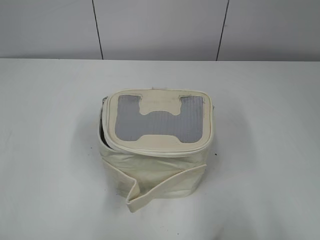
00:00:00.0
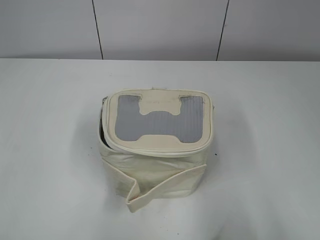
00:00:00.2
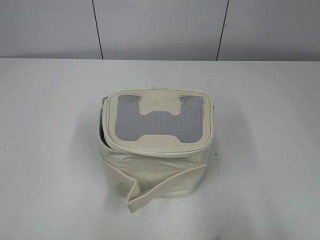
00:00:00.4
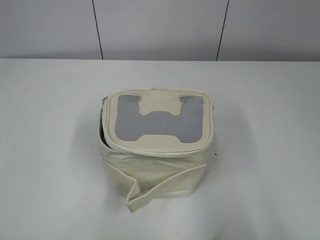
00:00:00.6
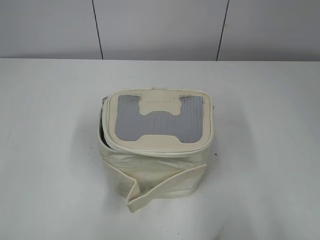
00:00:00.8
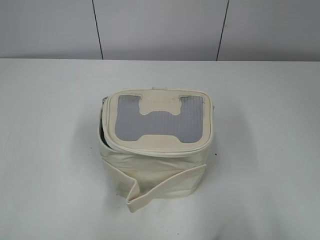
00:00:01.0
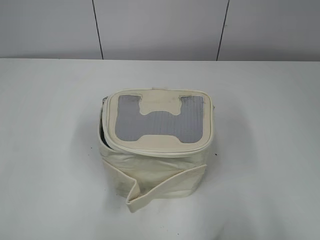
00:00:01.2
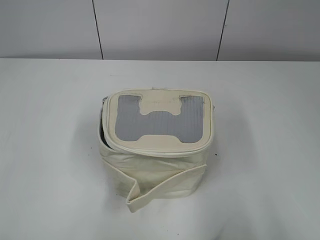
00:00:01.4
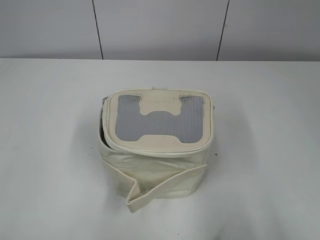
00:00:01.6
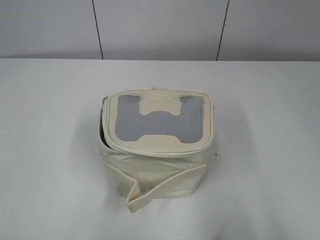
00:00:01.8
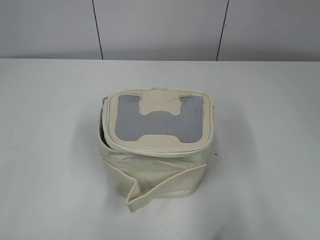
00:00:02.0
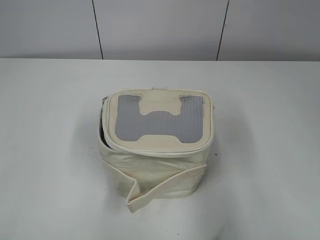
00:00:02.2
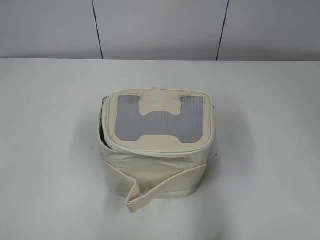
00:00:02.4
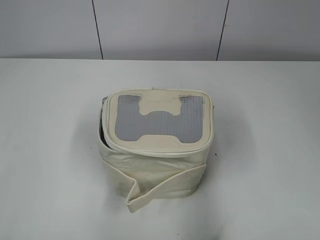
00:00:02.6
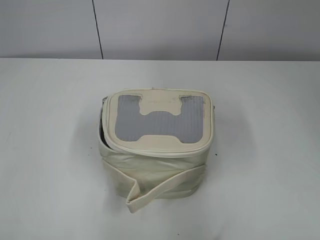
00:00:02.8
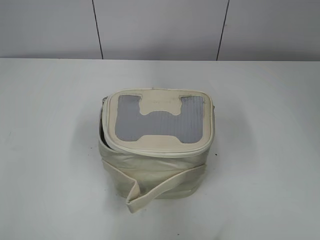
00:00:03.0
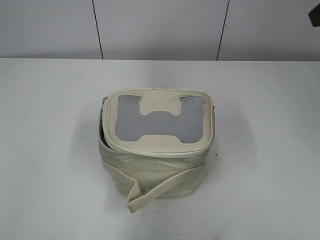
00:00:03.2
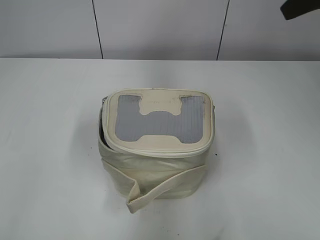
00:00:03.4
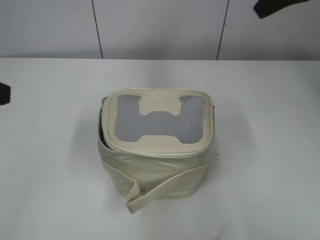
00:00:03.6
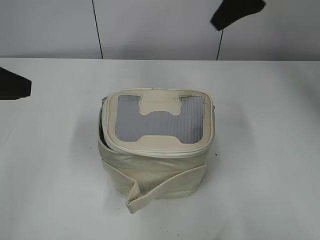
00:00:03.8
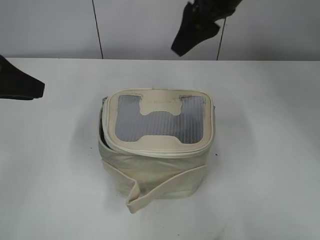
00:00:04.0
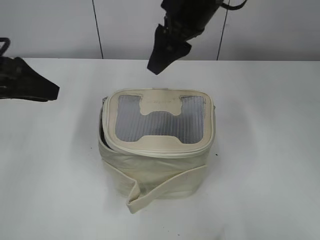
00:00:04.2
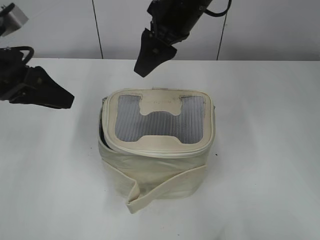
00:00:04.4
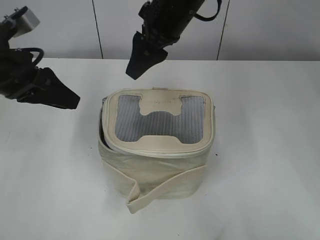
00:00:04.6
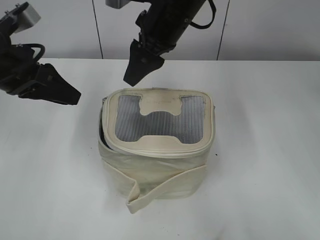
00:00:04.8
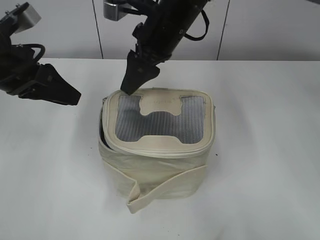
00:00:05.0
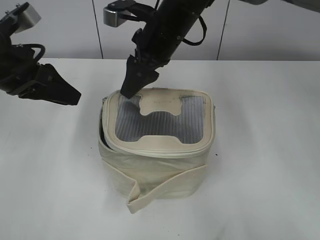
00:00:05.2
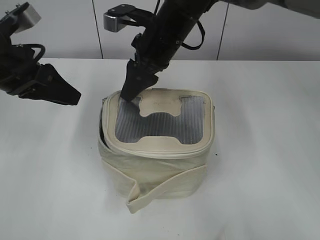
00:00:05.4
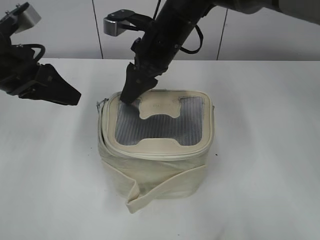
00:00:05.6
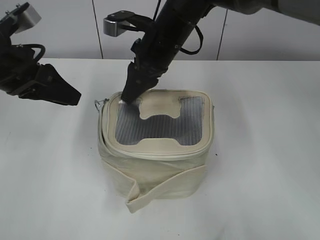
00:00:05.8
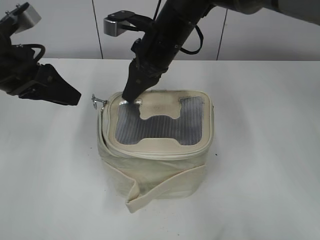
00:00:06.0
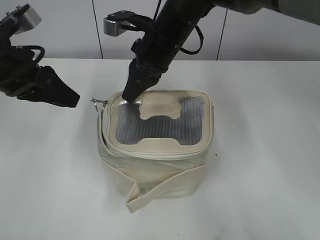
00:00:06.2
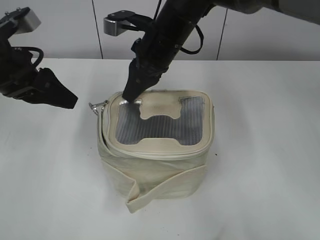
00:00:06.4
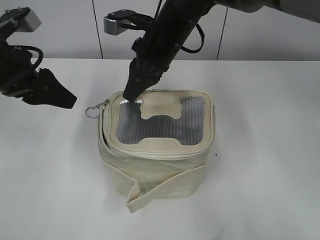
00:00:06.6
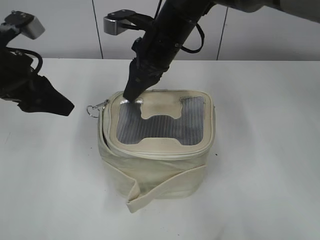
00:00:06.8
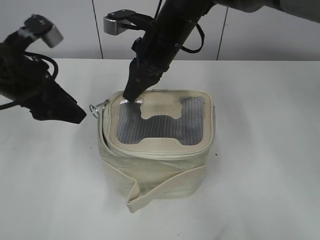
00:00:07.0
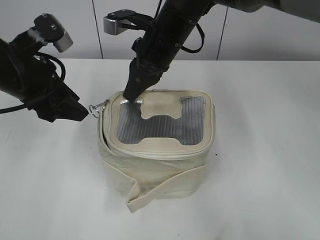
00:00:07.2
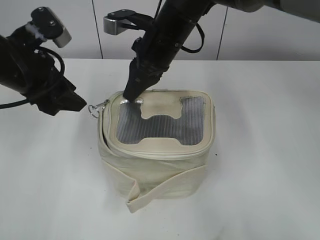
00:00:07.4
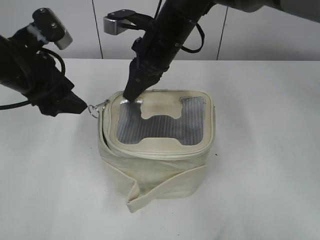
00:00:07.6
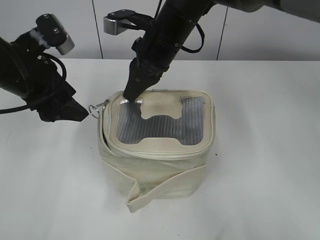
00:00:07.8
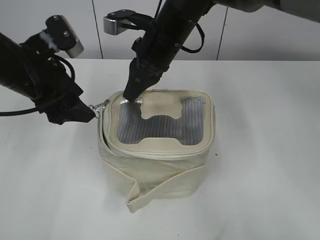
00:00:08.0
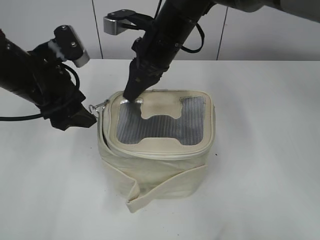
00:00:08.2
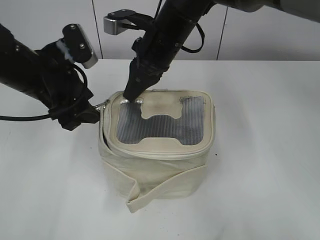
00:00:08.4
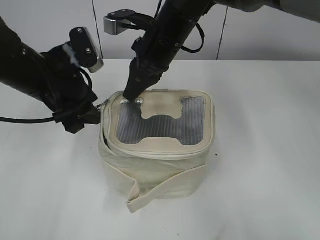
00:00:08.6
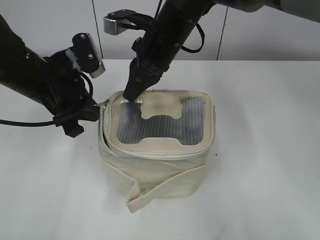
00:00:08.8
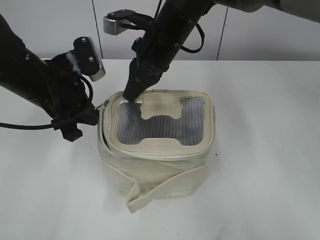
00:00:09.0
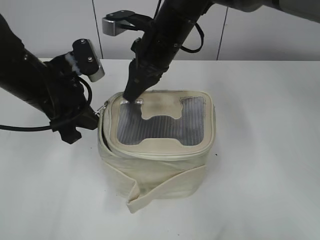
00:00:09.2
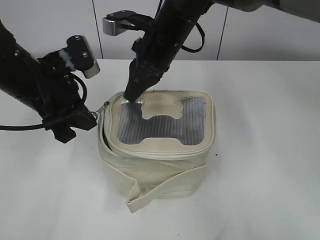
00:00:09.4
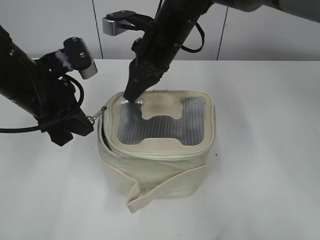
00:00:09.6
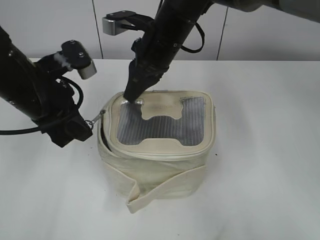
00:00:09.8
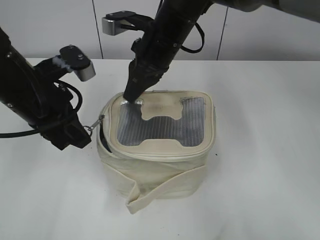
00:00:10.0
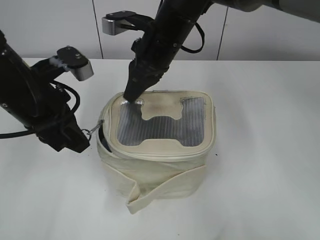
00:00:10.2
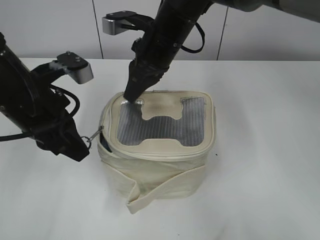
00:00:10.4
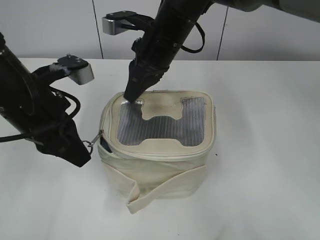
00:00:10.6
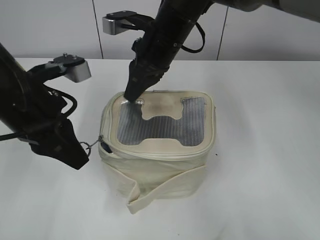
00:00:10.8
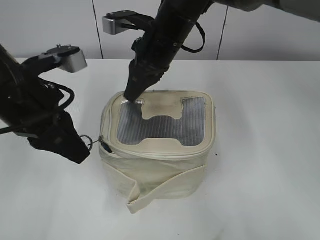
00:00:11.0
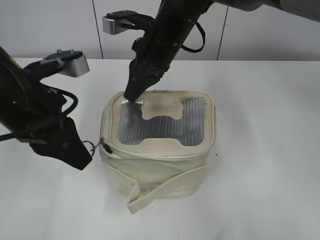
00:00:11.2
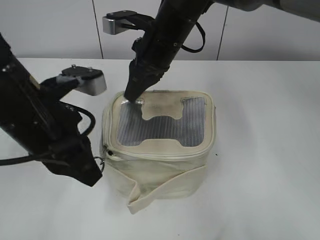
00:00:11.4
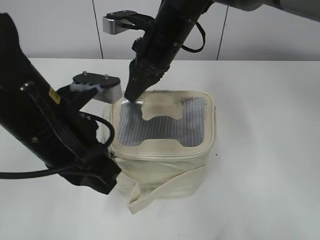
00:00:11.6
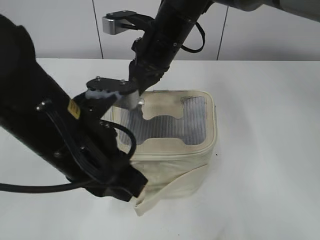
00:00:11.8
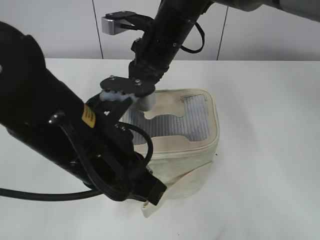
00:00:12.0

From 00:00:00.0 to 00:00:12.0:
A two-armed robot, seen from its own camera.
From 00:00:01.6 to 00:00:03.0: The right gripper moves forward, approximately 25 cm. Meanwhile the left gripper moves about 5 cm.
From 00:00:03.0 to 00:00:04.4: The right gripper is displaced to the left and forward by some 30 cm, while the left gripper shifts roughly 25 cm forward.
From 00:00:04.4 to 00:00:06.0: The right gripper shifts about 5 cm downward, and closes.
From 00:00:06.0 to 00:00:07.6: The left gripper opens its fingers.
From 00:00:07.6 to 00:00:09.0: The left gripper closes.
From 00:00:10.4 to 00:00:12.0: The left gripper heads to the right and backward, covering approximately 15 cm.

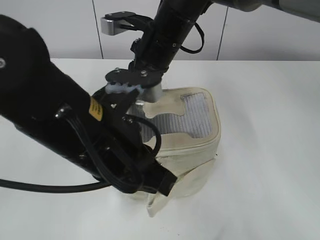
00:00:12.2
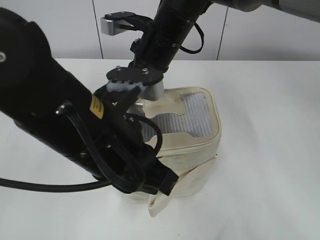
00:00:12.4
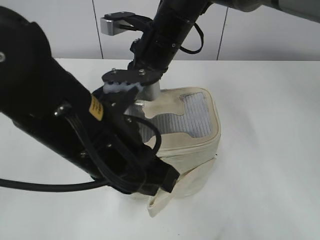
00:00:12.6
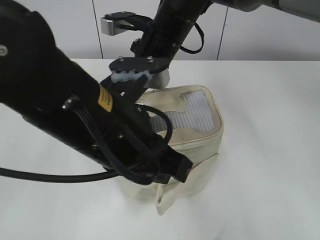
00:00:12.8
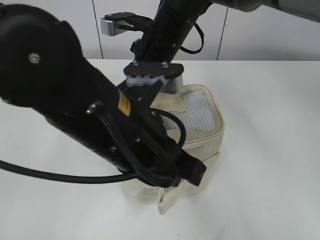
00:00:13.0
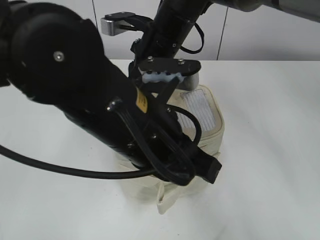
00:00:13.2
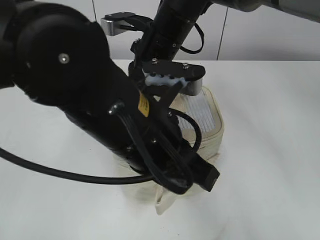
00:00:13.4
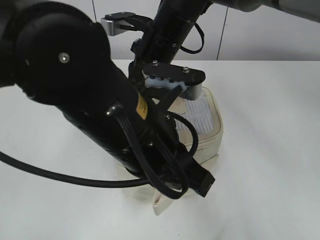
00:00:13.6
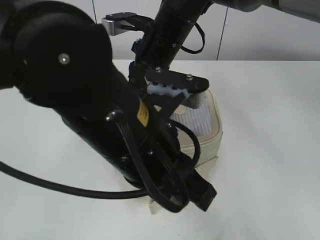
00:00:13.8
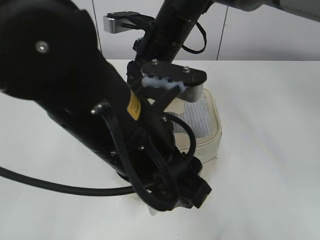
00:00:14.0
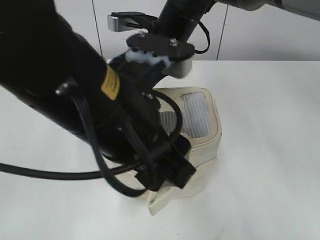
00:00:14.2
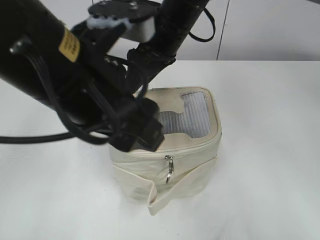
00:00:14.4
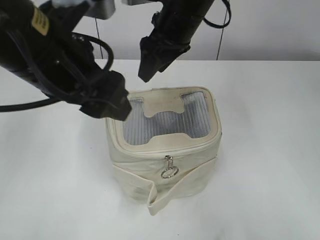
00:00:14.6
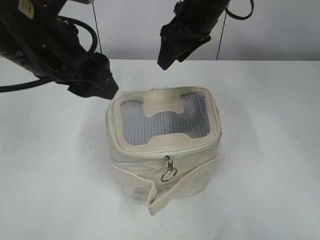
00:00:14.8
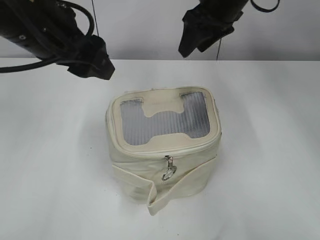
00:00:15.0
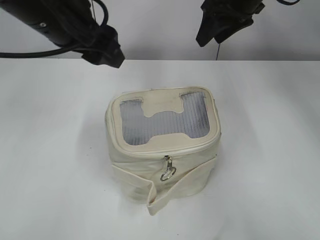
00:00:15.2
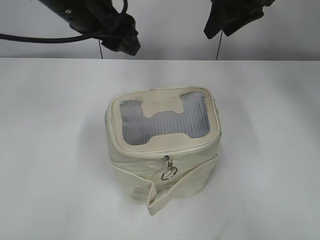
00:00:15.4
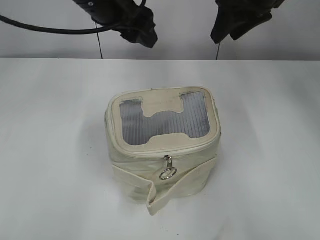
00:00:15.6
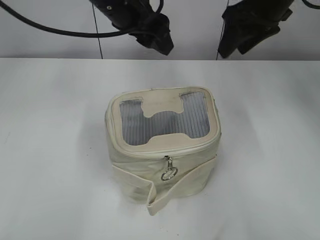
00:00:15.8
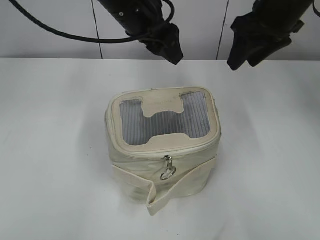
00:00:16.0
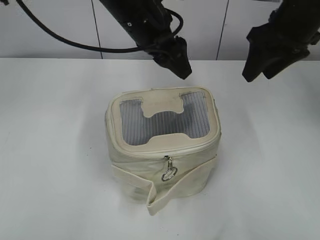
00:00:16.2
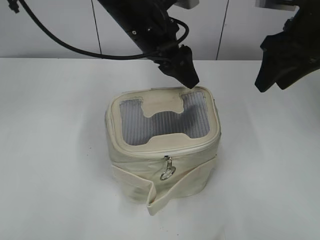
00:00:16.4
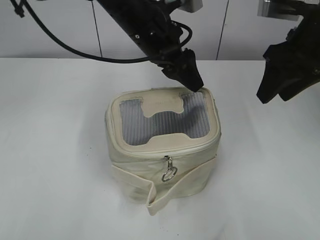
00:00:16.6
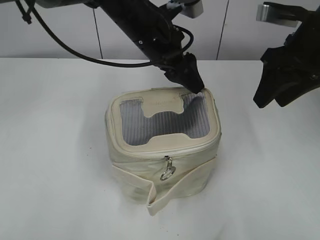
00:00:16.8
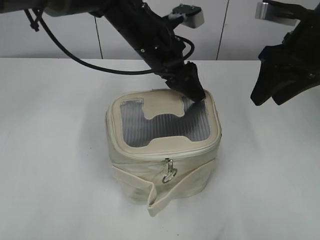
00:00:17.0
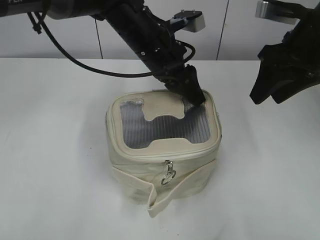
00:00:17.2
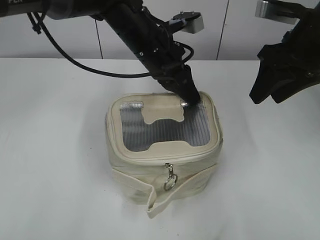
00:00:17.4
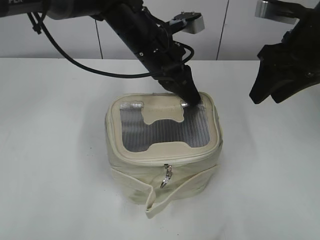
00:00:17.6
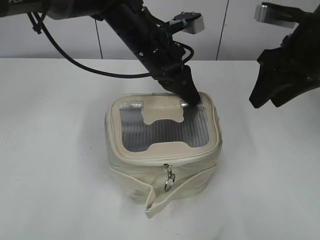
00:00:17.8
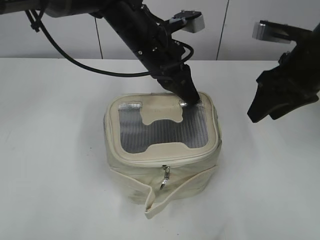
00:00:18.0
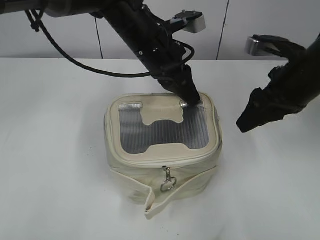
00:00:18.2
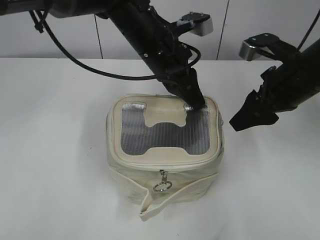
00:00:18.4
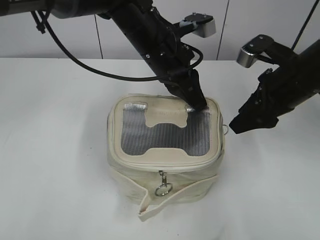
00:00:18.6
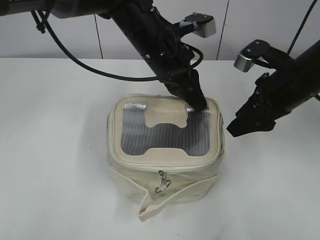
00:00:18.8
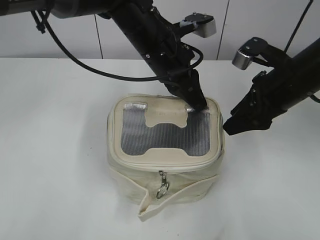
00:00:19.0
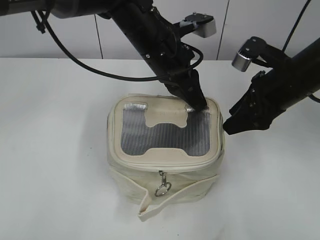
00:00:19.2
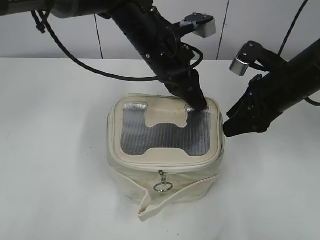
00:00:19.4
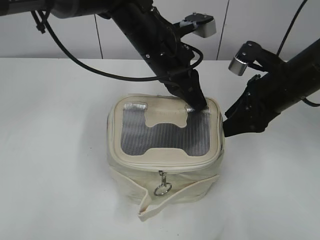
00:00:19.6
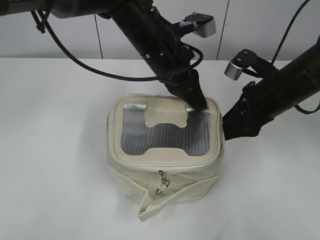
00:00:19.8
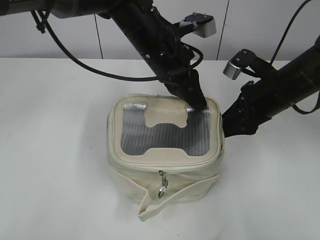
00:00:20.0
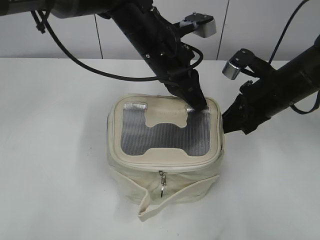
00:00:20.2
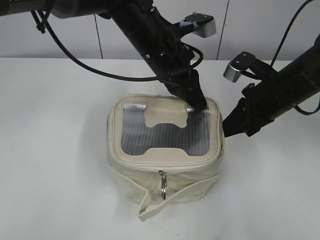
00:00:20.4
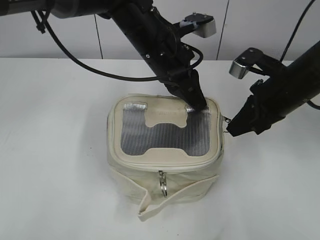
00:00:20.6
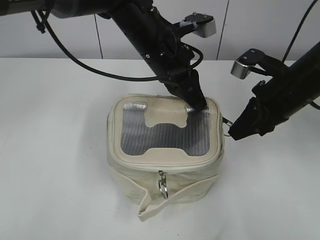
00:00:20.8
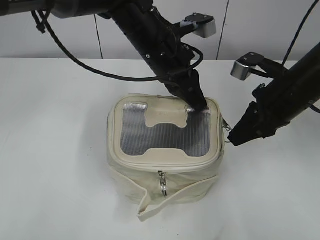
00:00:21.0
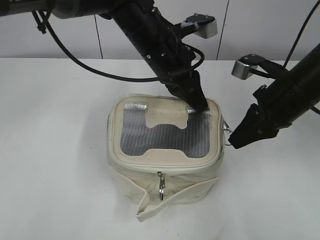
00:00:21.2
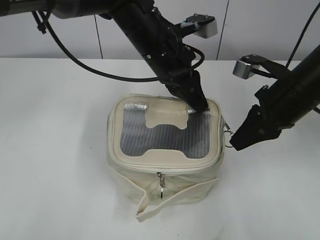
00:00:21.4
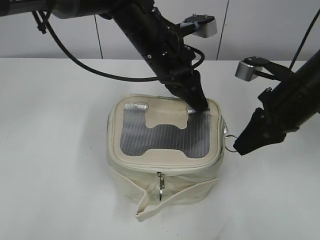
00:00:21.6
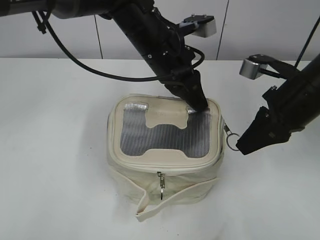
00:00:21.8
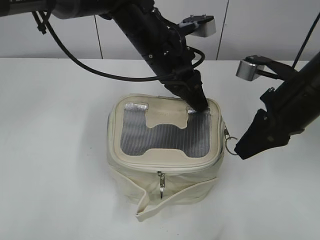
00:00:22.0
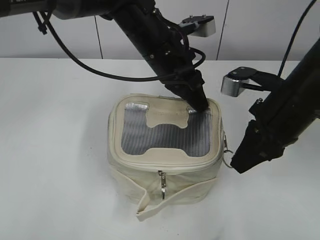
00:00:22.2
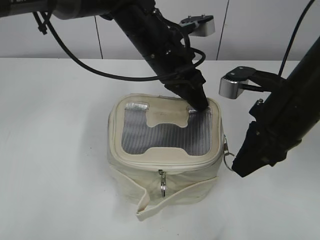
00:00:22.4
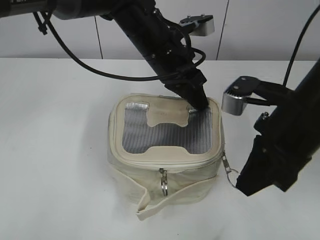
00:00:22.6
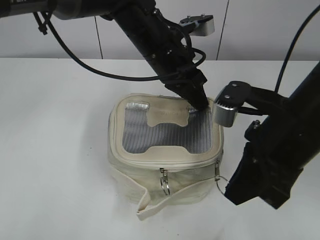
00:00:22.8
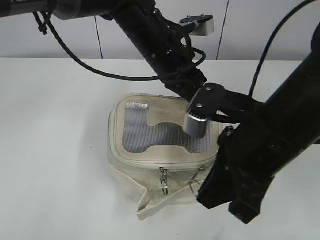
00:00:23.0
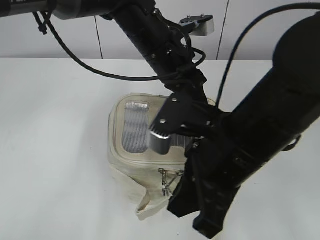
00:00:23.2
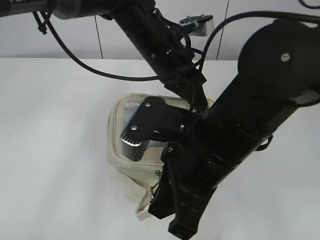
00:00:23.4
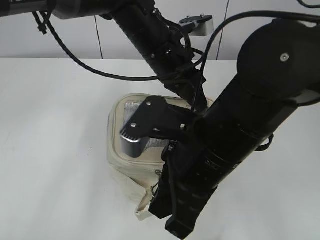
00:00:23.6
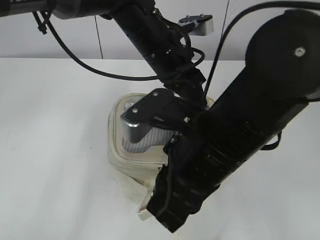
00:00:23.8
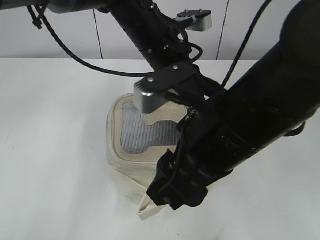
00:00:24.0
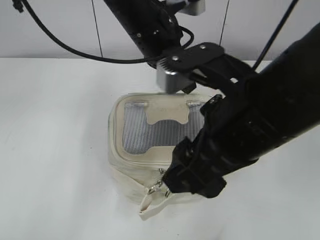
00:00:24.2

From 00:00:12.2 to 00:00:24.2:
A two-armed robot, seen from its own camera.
Step, from 00:00:14.2 to 00:00:14.4: Hold the bag with your right hand.
Step, from 00:00:14.6 to 00:00:24.0: Zip up the bag with your right hand.
From 00:00:13.8 to 00:00:15.2: The right gripper shifts roughly 15 cm to the right and upward, and opens its fingers, while the left gripper heads forward, to the left and upward, covering approximately 20 cm, and opens up.
From 00:00:15.2 to 00:00:16.6: The left gripper goes about 15 cm to the right, forward and downward, while the right gripper heads backward and to the right, covering roughly 15 cm.
From 00:00:16.6 to 00:00:18.2: The left gripper closes up. Meanwhile the right gripper is displaced downward by approximately 5 cm.
From 00:00:18.2 to 00:00:19.8: The right gripper shifts by approximately 5 cm.
From 00:00:19.8 to 00:00:21.2: The right gripper closes its fingers.
From 00:00:21.2 to 00:00:22.6: The right gripper is displaced backward by approximately 10 cm.
From 00:00:22.6 to 00:00:24.2: The right gripper shifts roughly 10 cm to the left and backward, and opens its fingers, while the left gripper opens up.
